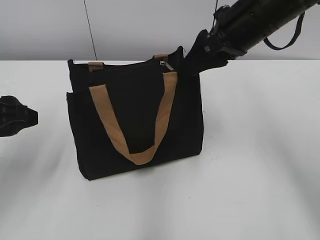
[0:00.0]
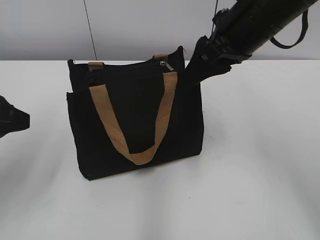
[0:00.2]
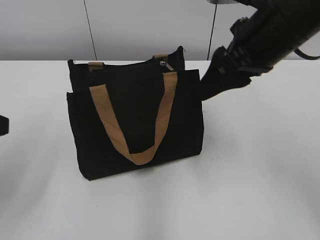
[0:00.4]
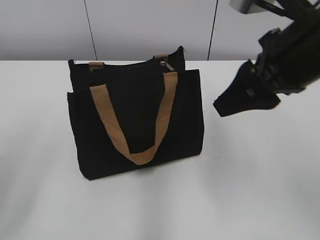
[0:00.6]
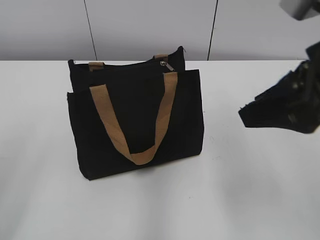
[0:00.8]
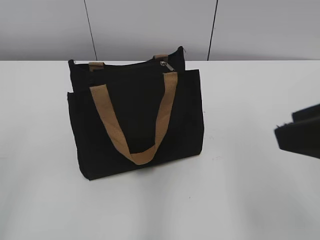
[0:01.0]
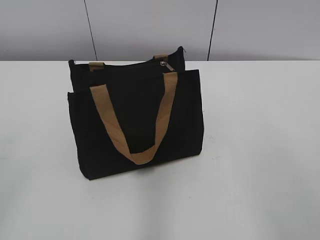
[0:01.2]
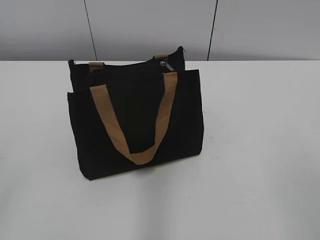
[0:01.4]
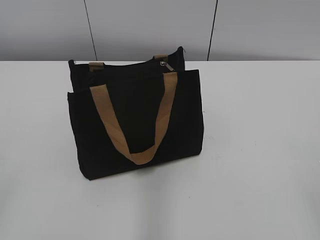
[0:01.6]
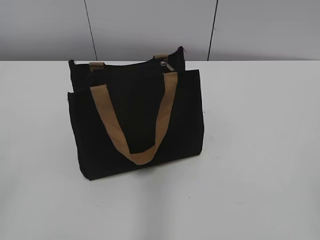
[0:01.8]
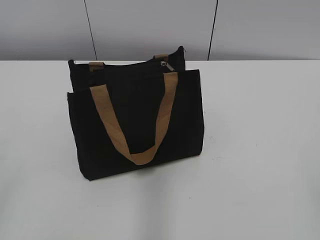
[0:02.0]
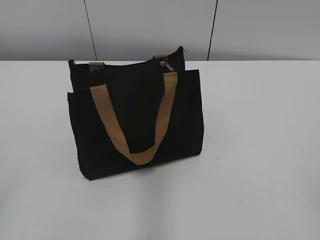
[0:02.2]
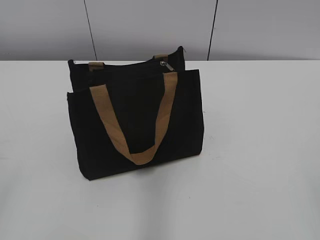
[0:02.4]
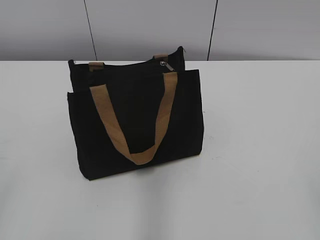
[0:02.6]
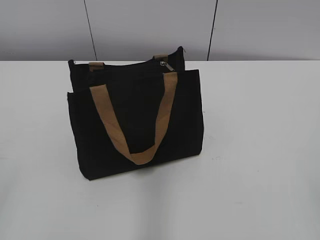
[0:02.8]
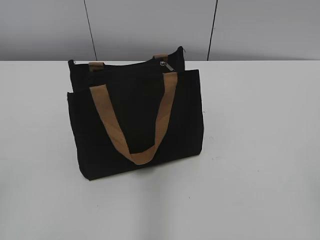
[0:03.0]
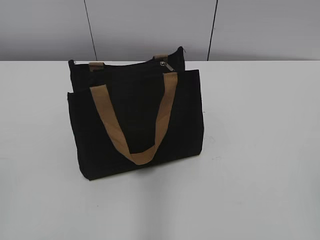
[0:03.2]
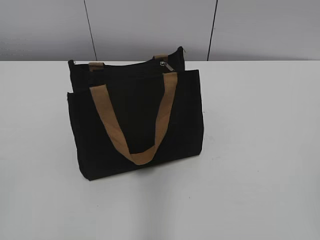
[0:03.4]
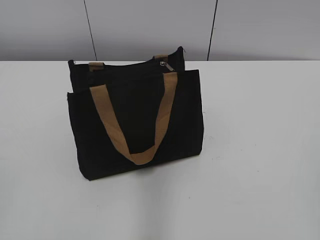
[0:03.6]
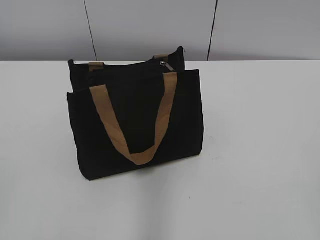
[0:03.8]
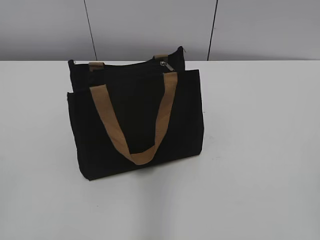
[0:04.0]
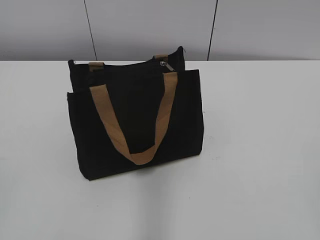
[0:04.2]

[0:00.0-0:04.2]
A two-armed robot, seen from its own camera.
0:00.0 to 0:01.4: The right gripper is displaced backward by approximately 30 cm. The left gripper shifts about 20 cm backward and upward.
